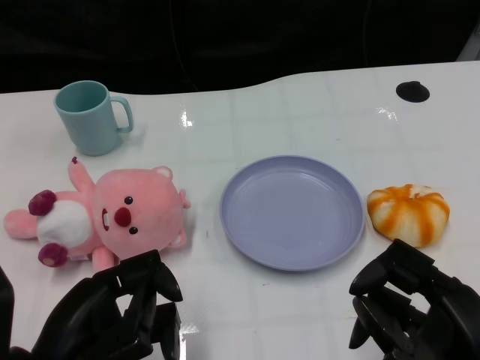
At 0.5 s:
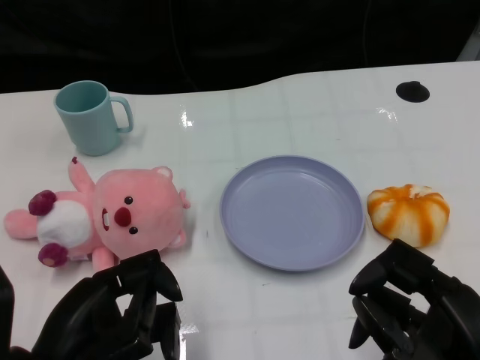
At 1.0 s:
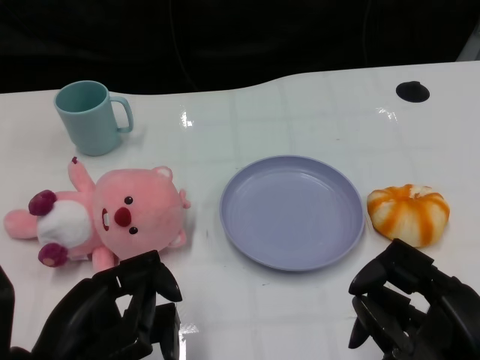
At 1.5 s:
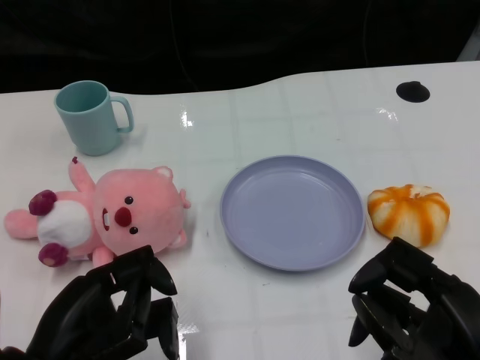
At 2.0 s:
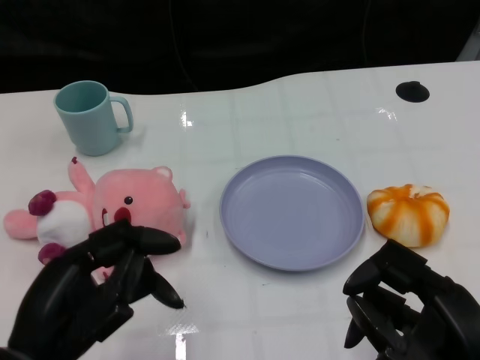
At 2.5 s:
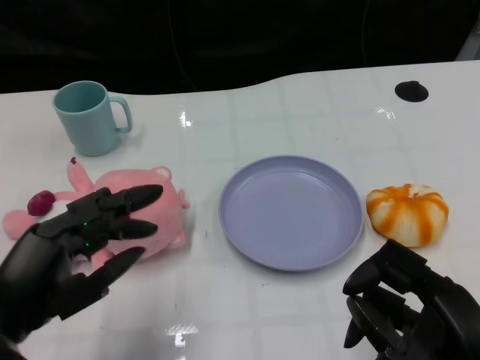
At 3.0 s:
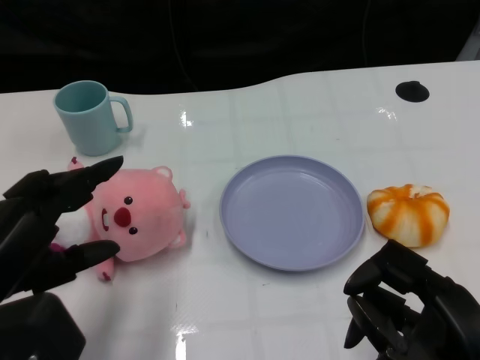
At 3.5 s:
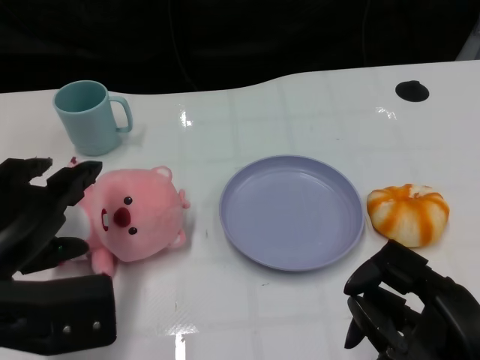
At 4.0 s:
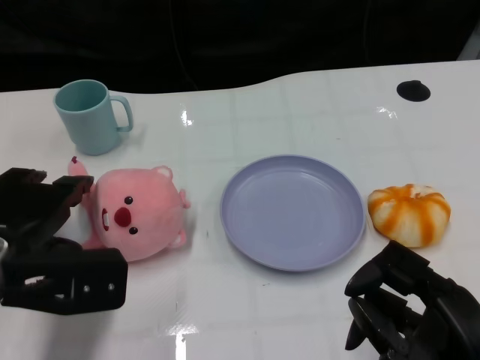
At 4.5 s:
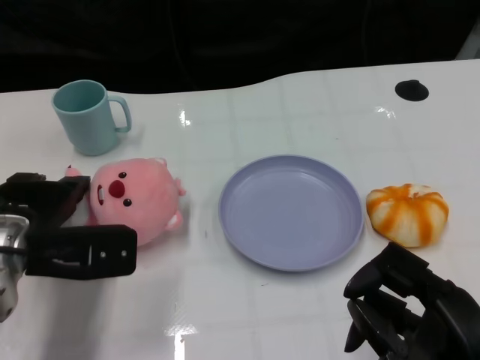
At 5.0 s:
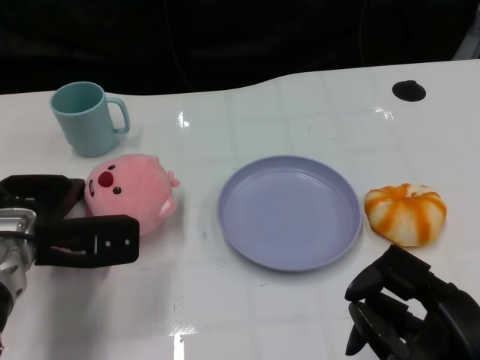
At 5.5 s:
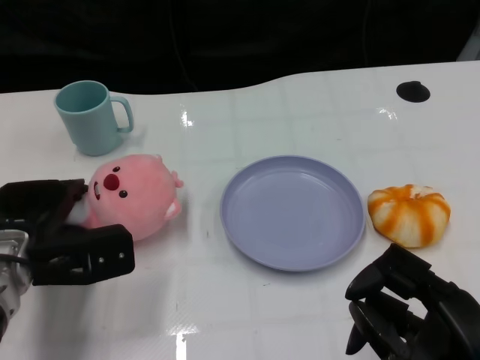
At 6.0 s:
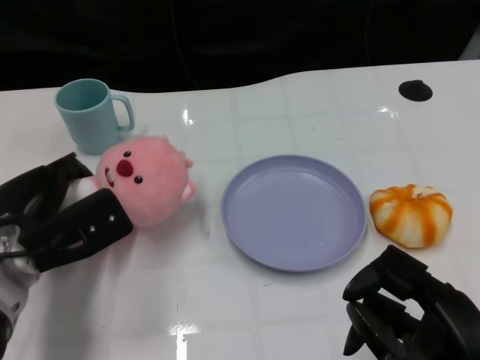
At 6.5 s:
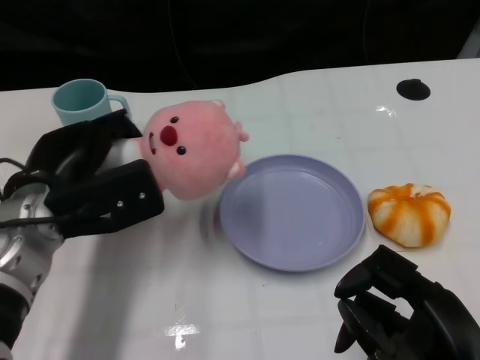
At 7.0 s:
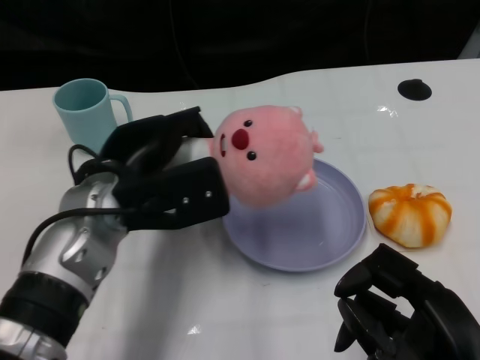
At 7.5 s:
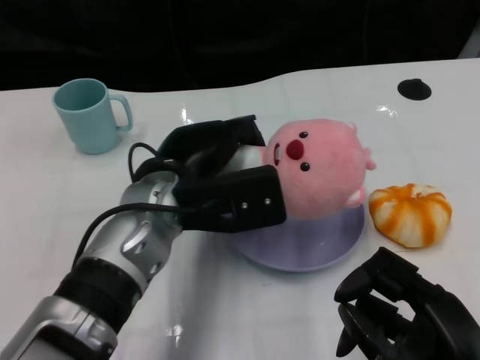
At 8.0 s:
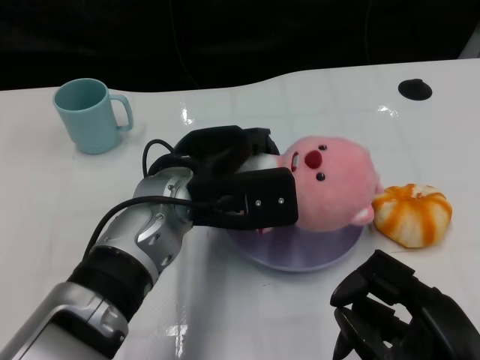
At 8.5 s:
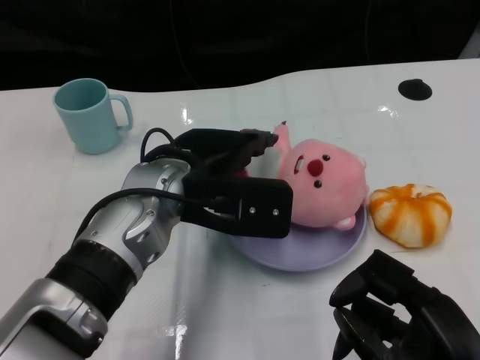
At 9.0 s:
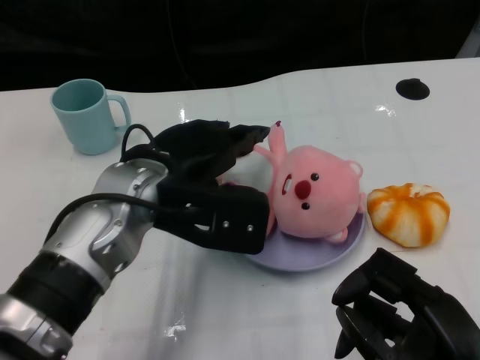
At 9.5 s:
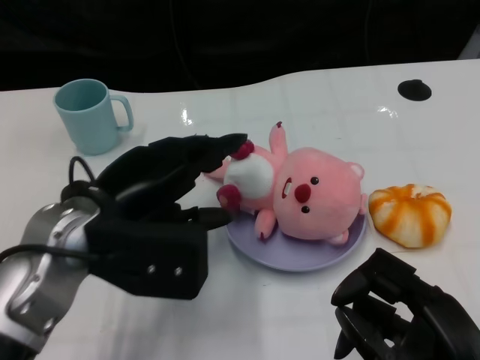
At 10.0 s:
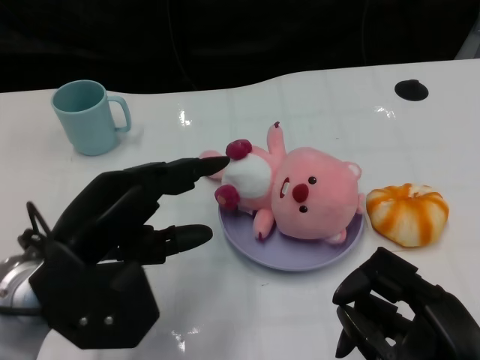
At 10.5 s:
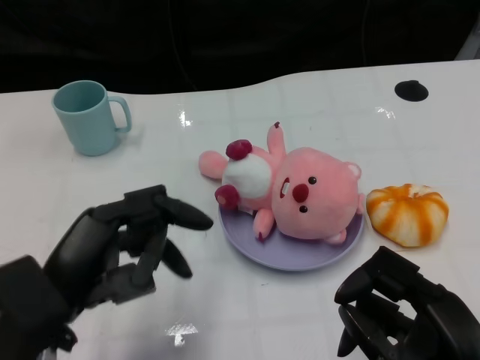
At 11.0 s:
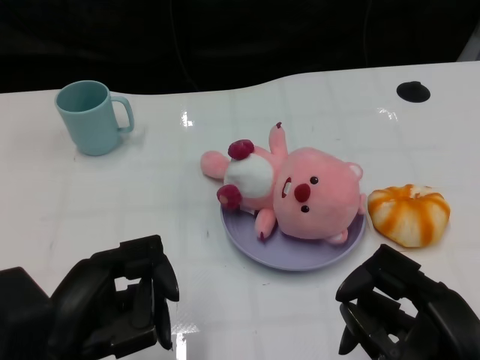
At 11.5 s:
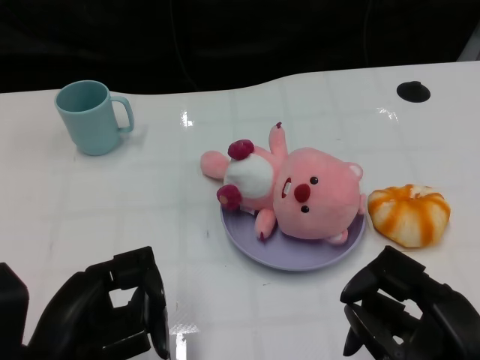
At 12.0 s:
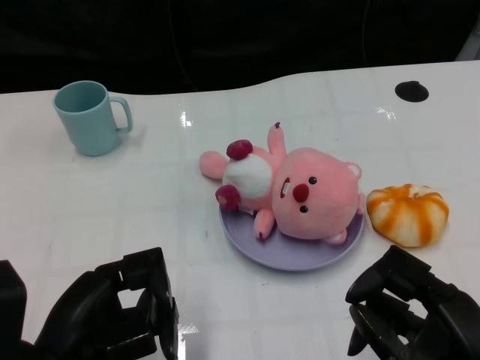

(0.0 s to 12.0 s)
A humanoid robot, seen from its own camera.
Task of the whole recording: Pick up the doll on one side of the plate and place it into the plate.
Step, 1.5 s - 6.0 s: Grasp the pink doll with the left gripper.
Step, 6.5 s - 8.5 s: Place the pink doll into the plate with the left gripper.
2.0 s - 4.0 s: The left hand goes some 10 cm forward.
4.0 s - 6.0 s: The left hand moves downward, roughly 5 cm.
6.0 s - 8.0 s: The left hand shifts approximately 15 cm to the right.
8.0 s - 10.0 s: The left hand travels to the left and backward by about 15 cm.
10.0 s - 12.0 s: The left hand is displaced backward by some 5 cm.

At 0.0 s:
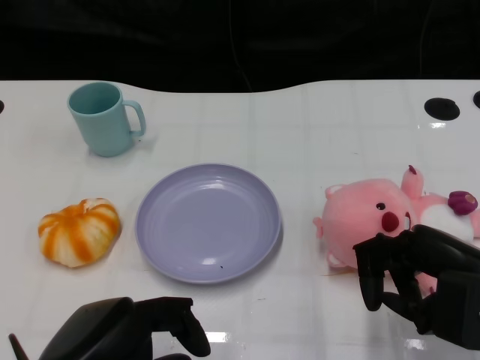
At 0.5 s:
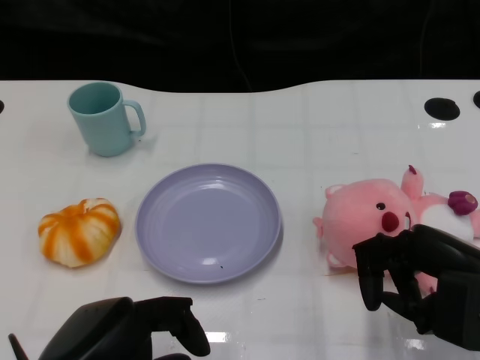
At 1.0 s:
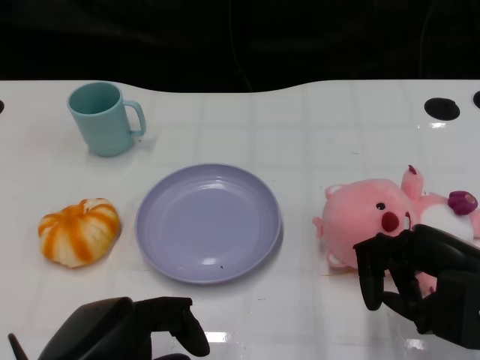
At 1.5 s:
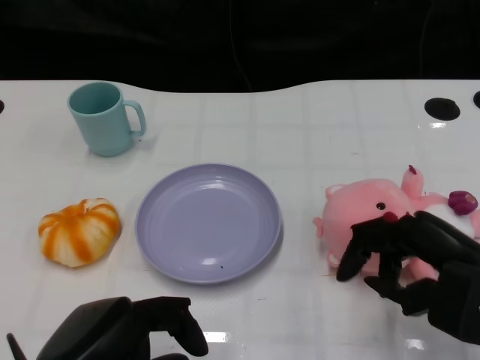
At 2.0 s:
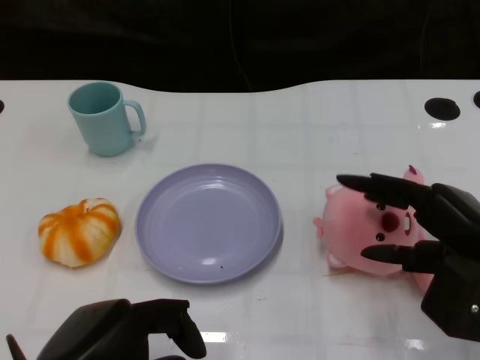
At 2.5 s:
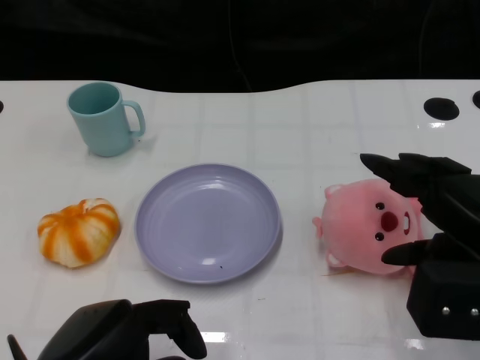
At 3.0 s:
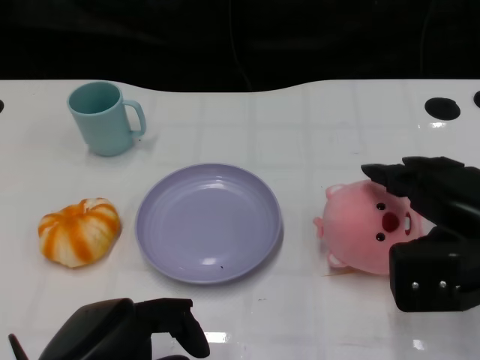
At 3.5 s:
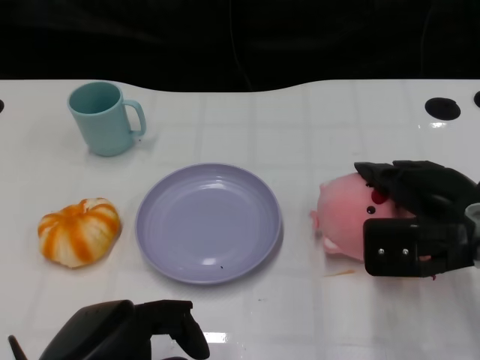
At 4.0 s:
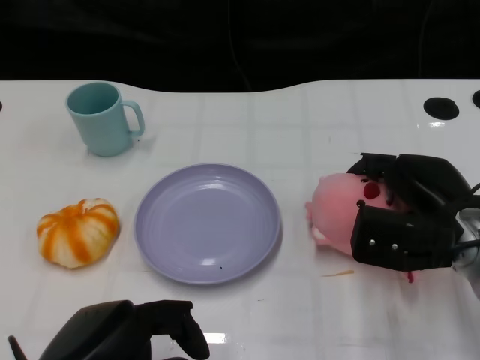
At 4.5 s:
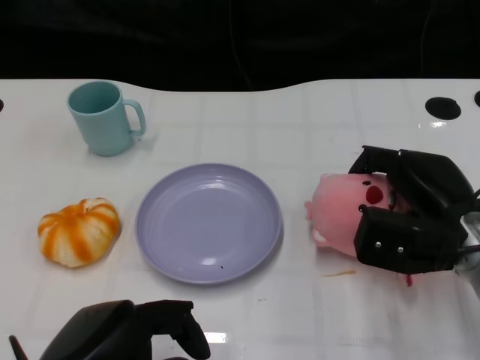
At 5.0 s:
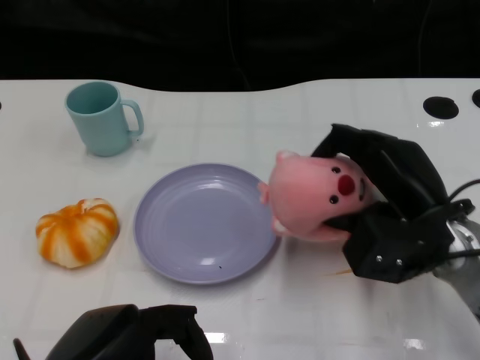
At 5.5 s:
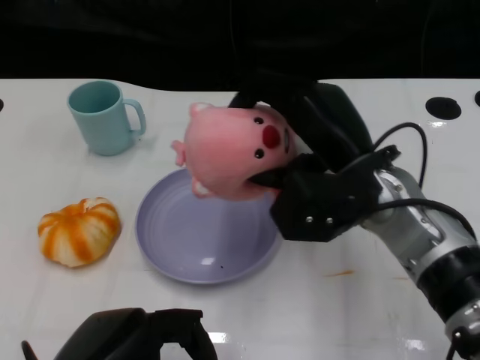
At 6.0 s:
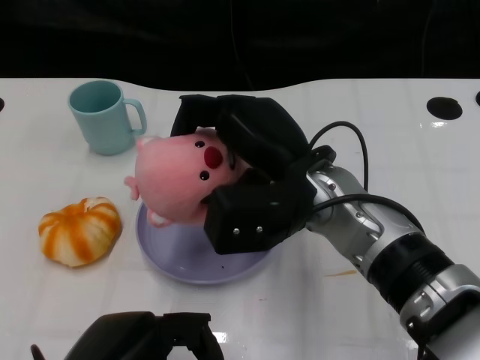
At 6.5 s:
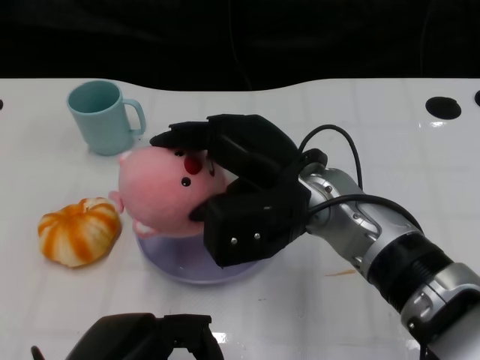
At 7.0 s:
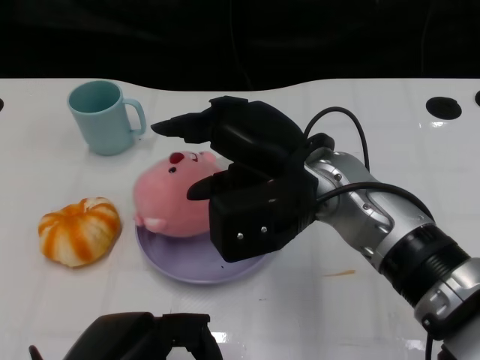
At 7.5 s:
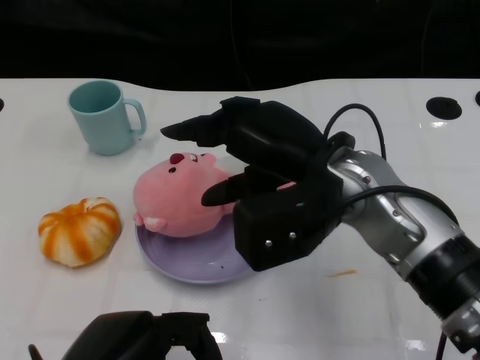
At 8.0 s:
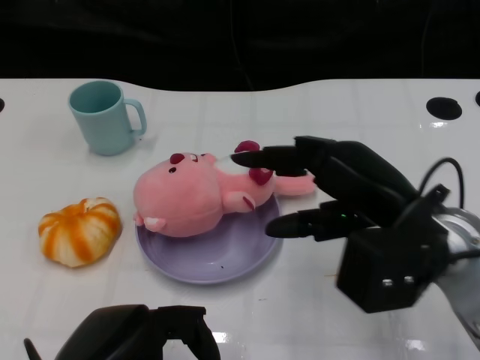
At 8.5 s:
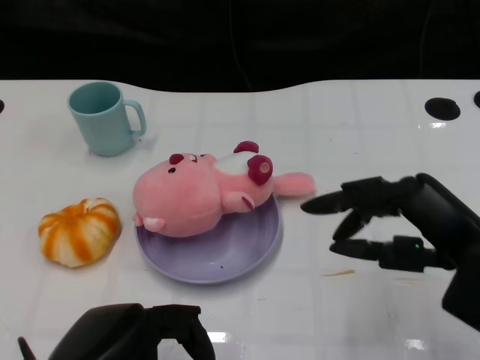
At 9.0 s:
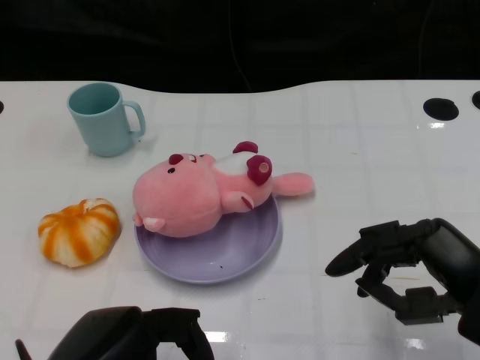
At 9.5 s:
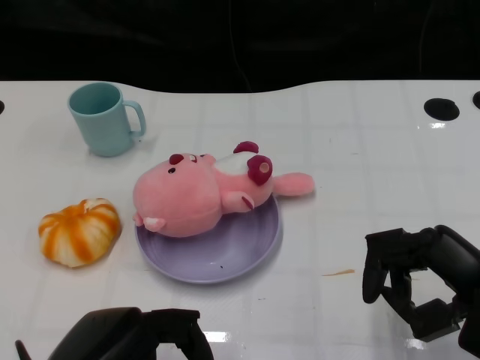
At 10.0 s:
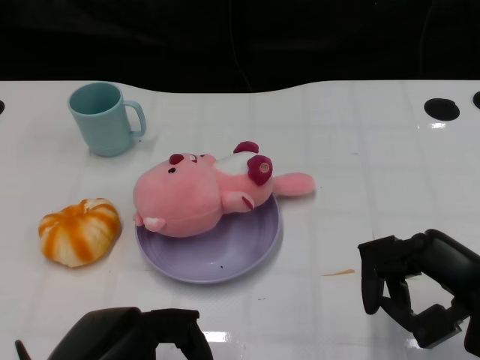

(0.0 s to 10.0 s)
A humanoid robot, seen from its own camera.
Task of the whole recording: Pick up the doll on the other side of the plate and place it into the plate.
Step, 1.5 s - 5.0 s: Grasp the pink doll with the right gripper.
Step, 5.5 s - 7.0 s: Place the pink doll into the plate with the right gripper.
2.0 s - 4.0 s: The right hand moves forward, about 10 cm.
4.0 s - 6.0 s: The right hand moves to the left and upward, roughly 15 cm.
6.0 s - 8.0 s: The right hand travels to the right by some 10 cm.
8.0 s - 10.0 s: The right hand shifts approximately 10 cm to the right and backward.

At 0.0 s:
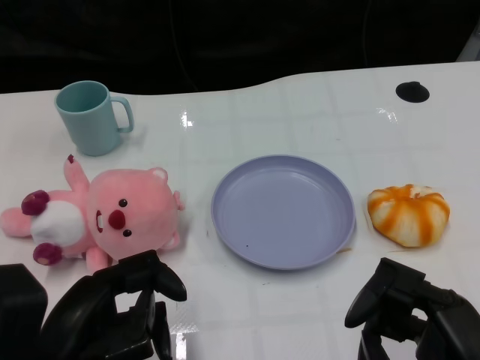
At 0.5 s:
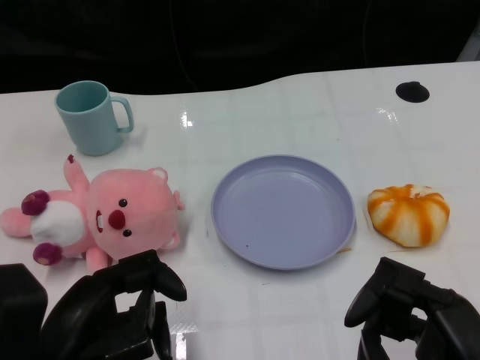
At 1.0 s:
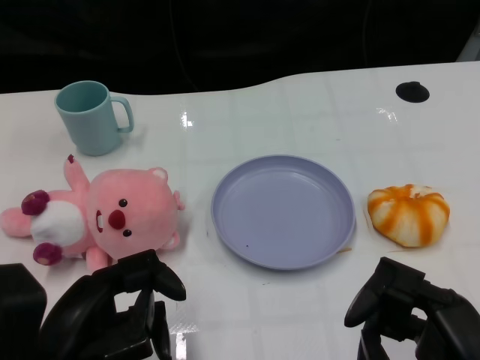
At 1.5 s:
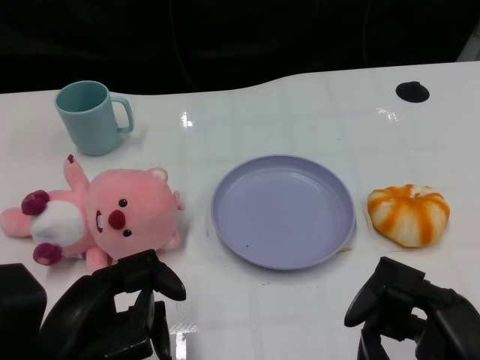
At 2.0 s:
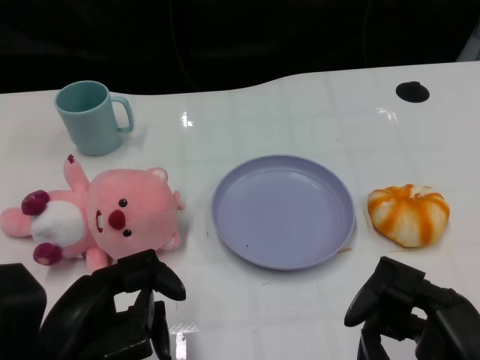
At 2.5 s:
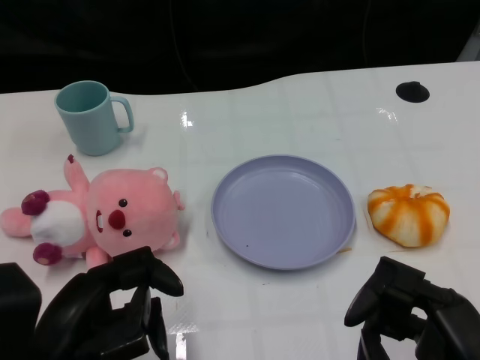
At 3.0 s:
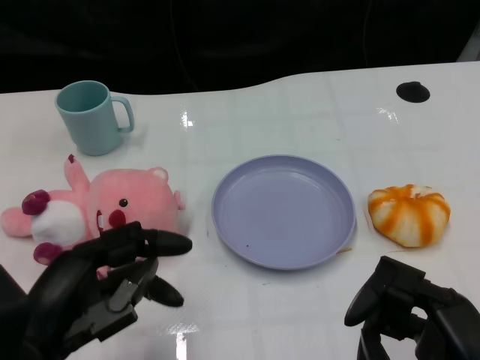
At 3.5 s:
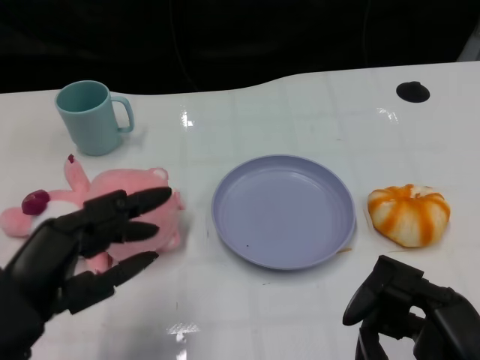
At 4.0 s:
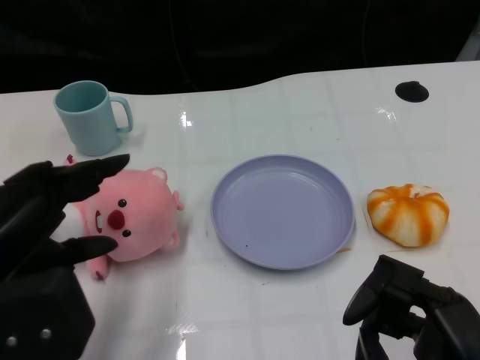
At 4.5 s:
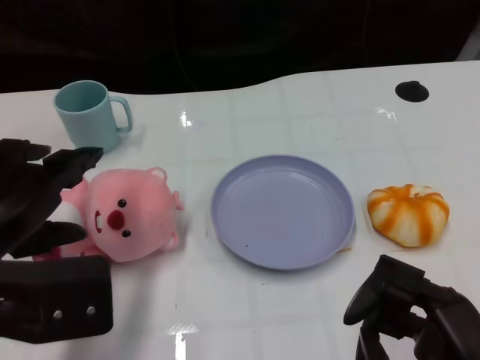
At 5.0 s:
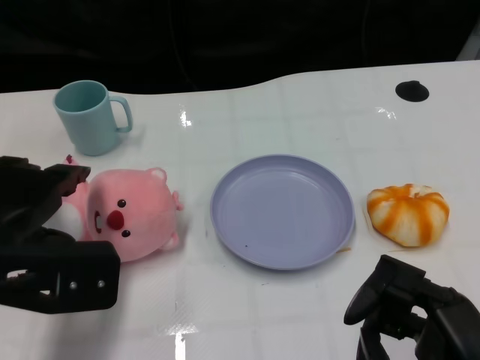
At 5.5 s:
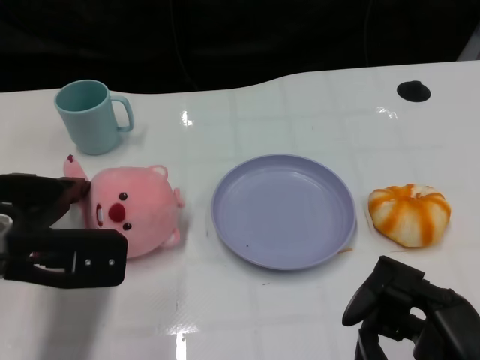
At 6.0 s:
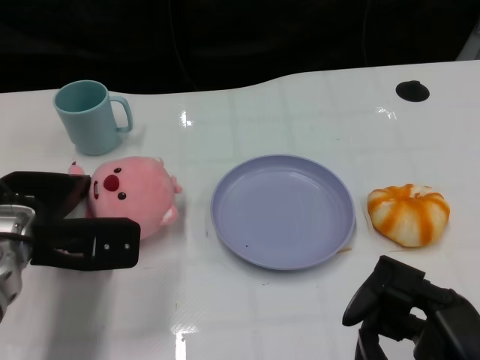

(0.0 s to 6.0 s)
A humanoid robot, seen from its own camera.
Task of the whole recording: Pick up the doll on one side of the plate and place it into the plate.
2.0 s - 4.0 s: The left hand travels upward by some 10 cm.
4.0 s - 6.0 s: The left hand heads forward and downward, covering approximately 15 cm.
